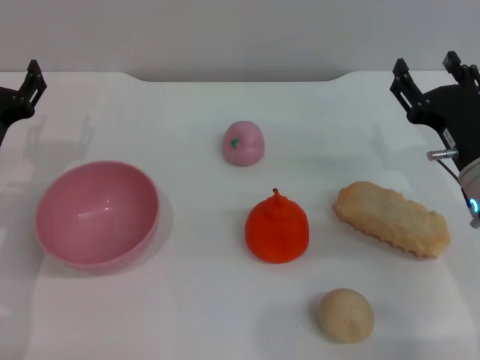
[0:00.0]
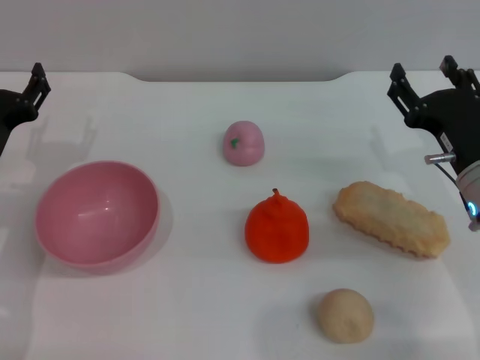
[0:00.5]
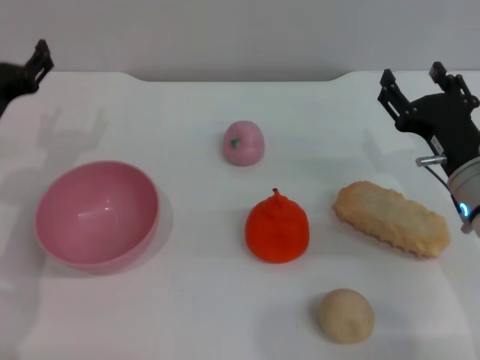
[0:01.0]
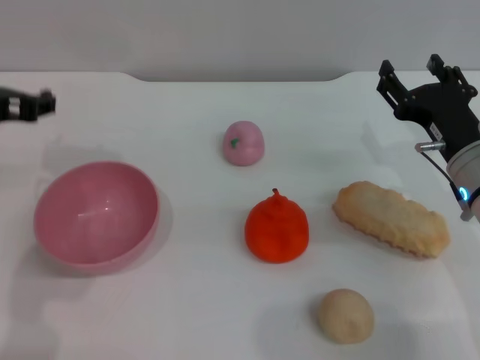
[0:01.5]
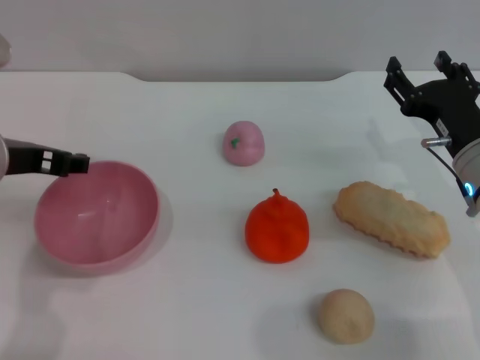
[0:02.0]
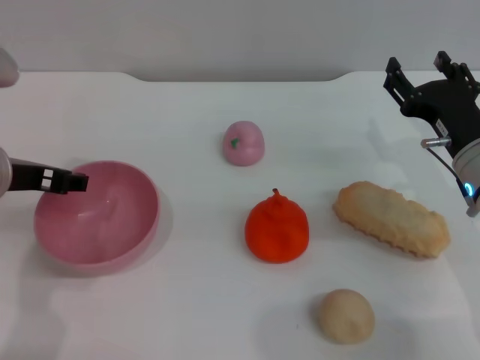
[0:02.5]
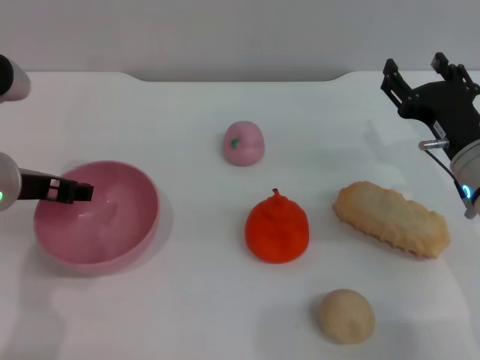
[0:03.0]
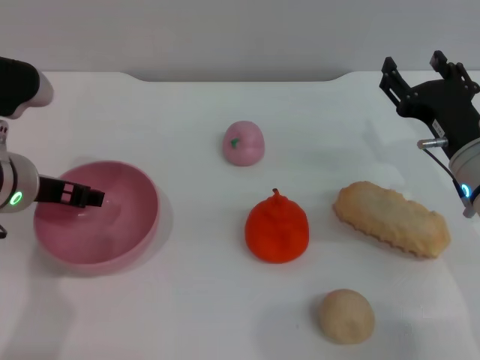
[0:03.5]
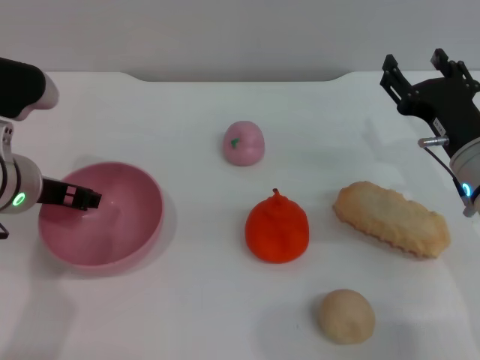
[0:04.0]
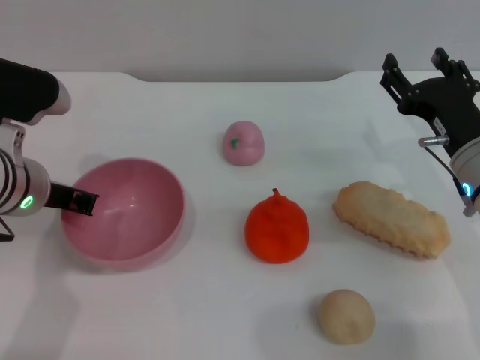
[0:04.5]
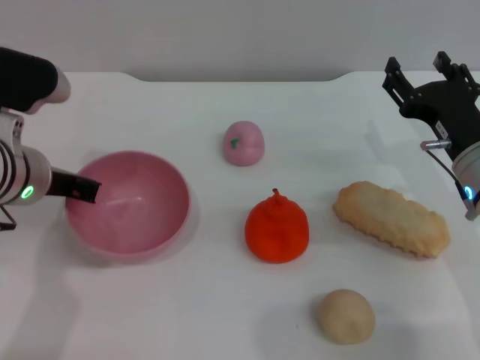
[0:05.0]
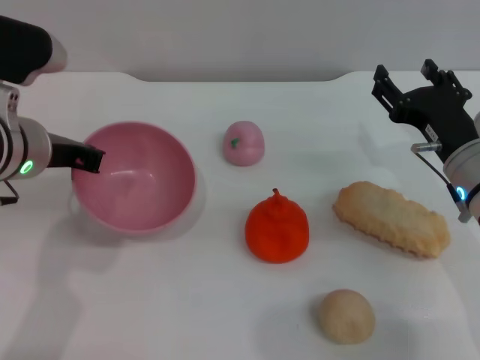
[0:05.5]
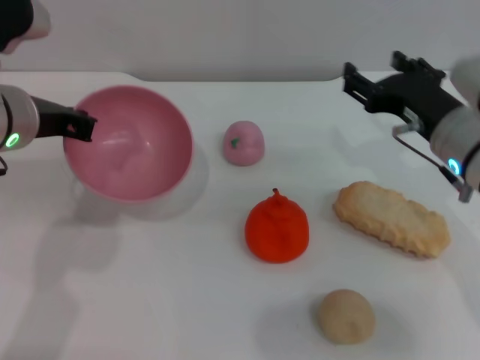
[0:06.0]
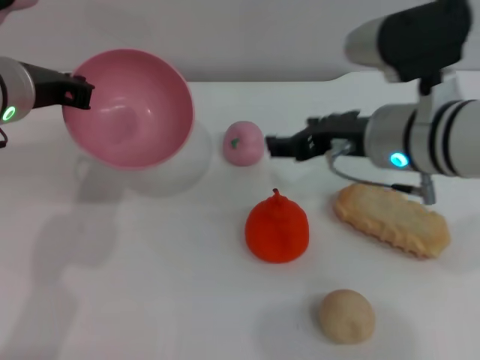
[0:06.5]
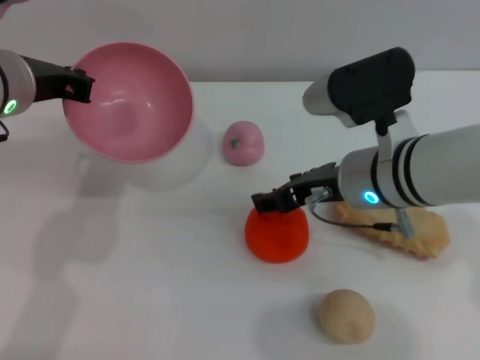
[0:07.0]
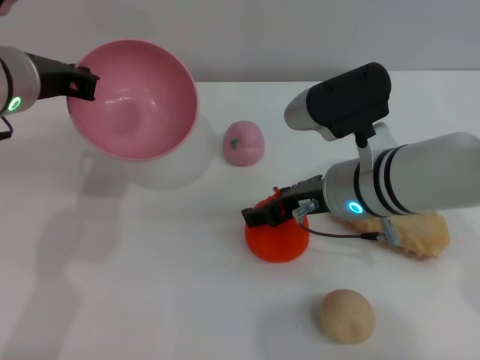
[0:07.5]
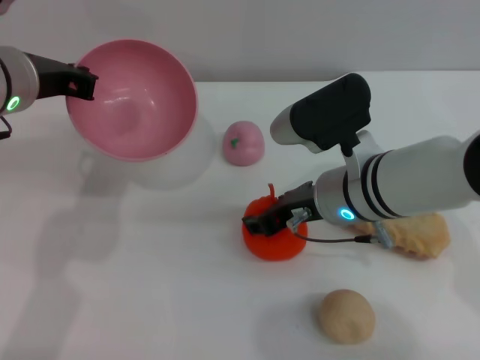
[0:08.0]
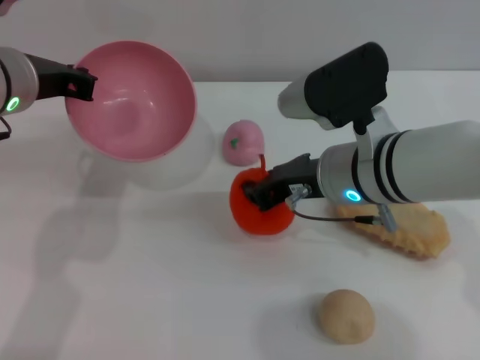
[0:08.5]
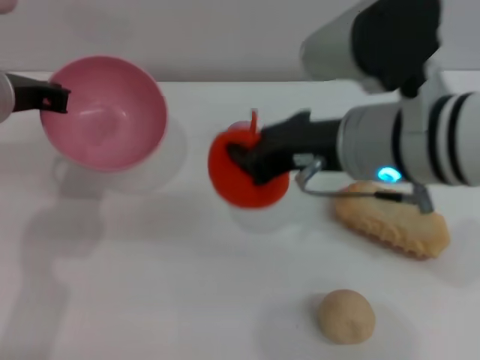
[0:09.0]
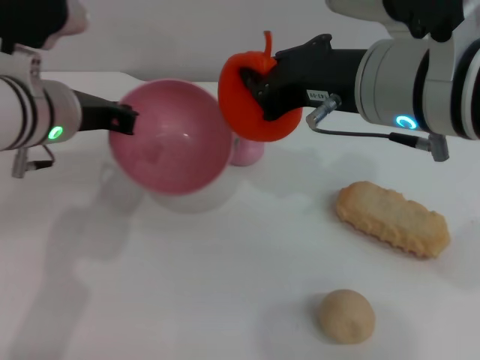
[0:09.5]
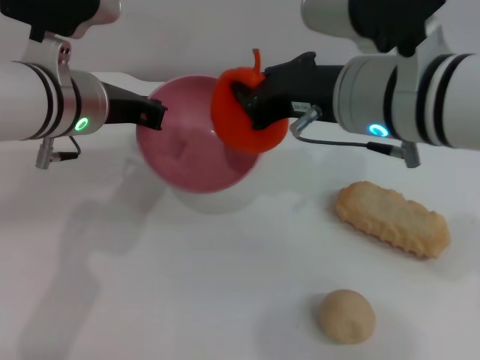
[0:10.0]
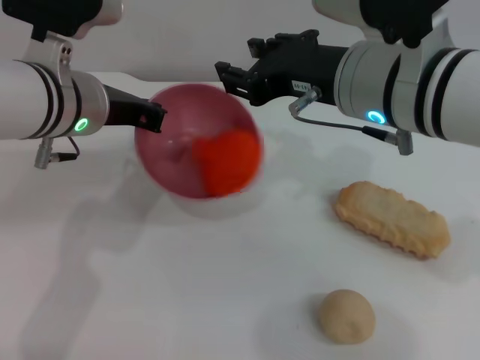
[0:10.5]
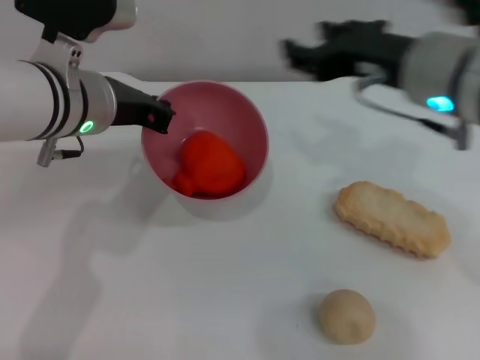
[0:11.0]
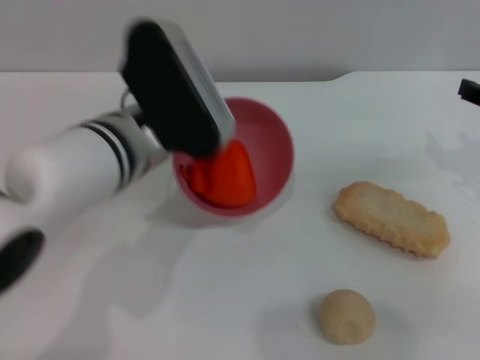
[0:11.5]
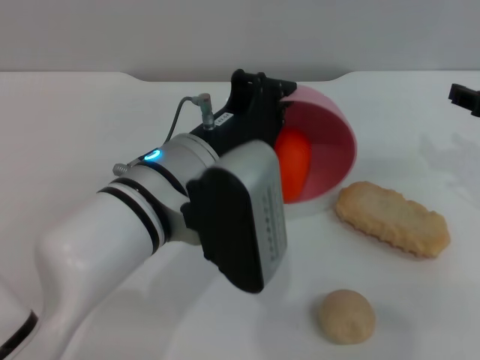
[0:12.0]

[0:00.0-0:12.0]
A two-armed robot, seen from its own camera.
Task of the whole recording: put the orange into the pink bowl and pour it out repeatedly.
Step, 0:00.0 to 0:05.0: Pick up the bowl with the left gripper.
Step, 0:05.5 to 0:08.5: Pick up the orange with the right gripper.
Step, 0:09.0 to 0:10.5: Place the orange into the bowl.
0:00.0 to 0:02.0: The left gripper shifts approximately 15 cm upward and to the right.
0:02.0 to 0:04.0: The left gripper heads downward, covering roughly 5 cm.
0:04.0 to 0:06.0: The two grippers go some 5 cm upward. The left gripper closes its fingers.
0:06.0 to 0:08.0: The right gripper travels to the left by some 10 cm.
0:08.0 to 0:10.0: The right gripper is displaced upward by roughly 10 cm, and closes.
0:10.0 to 0:12.0: The right gripper is displaced to the right by about 20 cm, and opens up. Meanwhile the left gripper heads backward and to the right, covering approximately 10 cm.

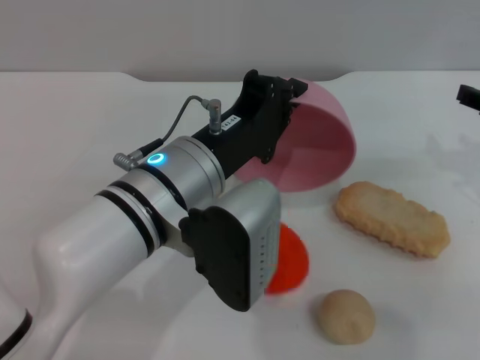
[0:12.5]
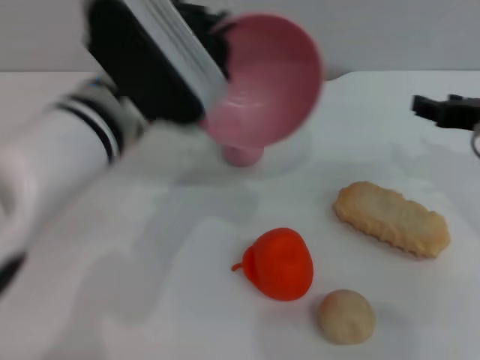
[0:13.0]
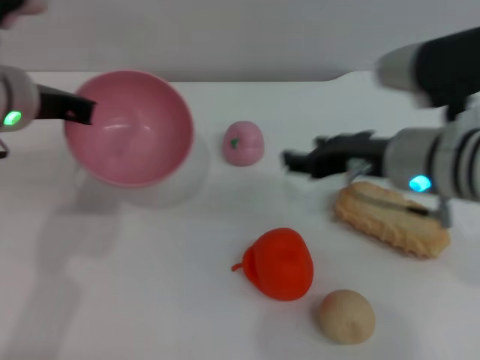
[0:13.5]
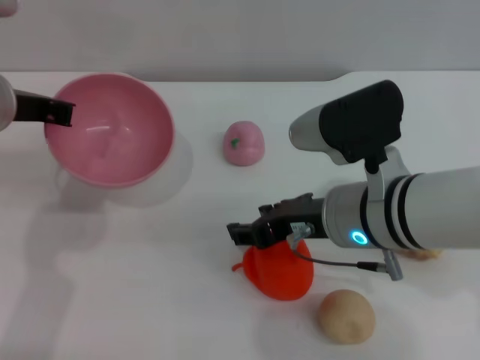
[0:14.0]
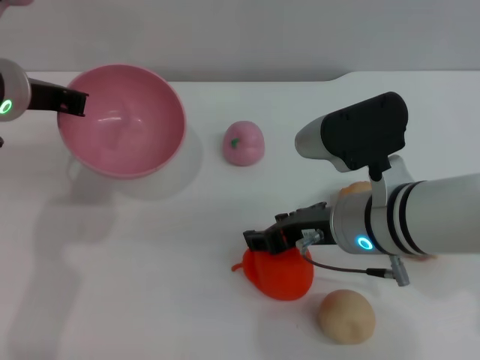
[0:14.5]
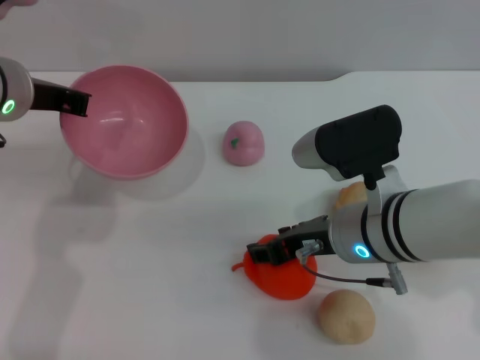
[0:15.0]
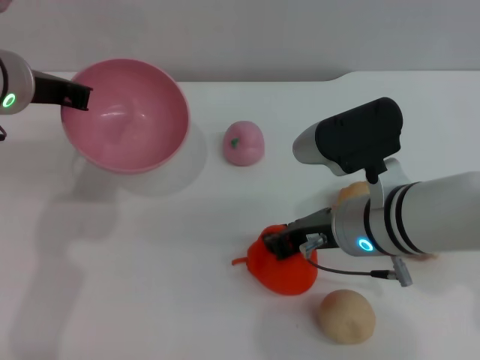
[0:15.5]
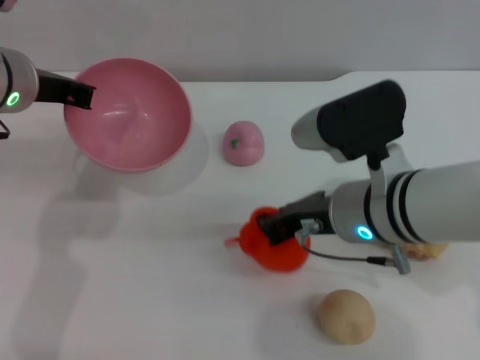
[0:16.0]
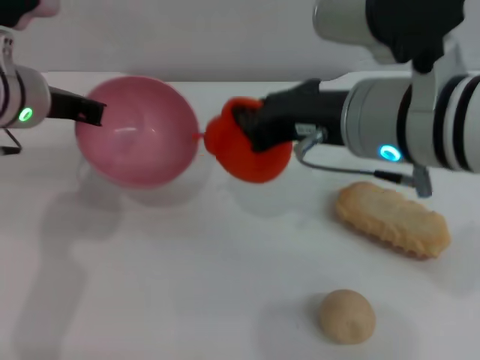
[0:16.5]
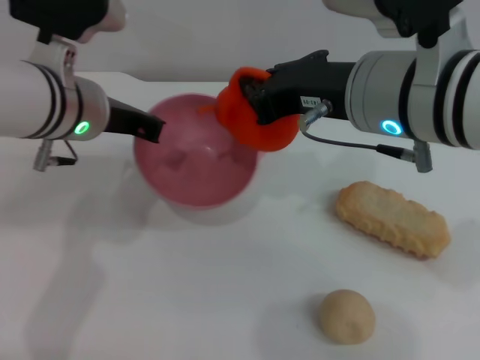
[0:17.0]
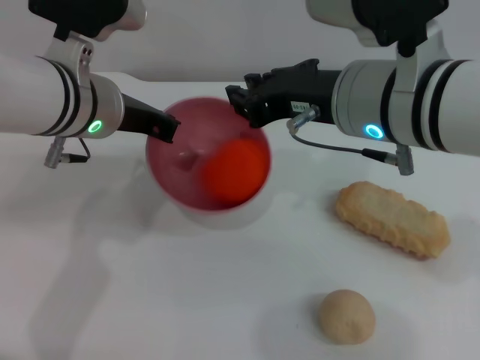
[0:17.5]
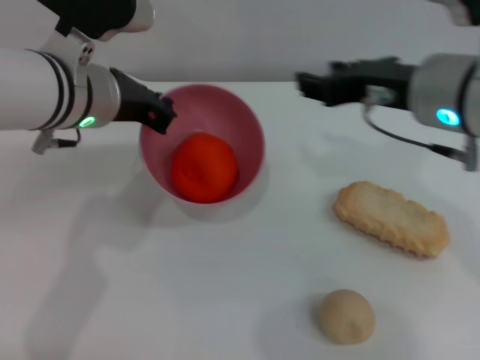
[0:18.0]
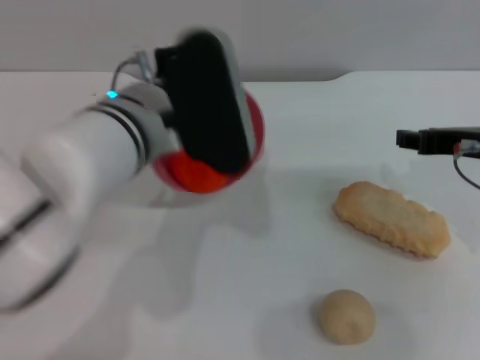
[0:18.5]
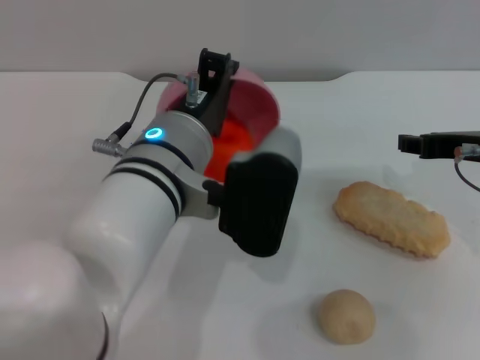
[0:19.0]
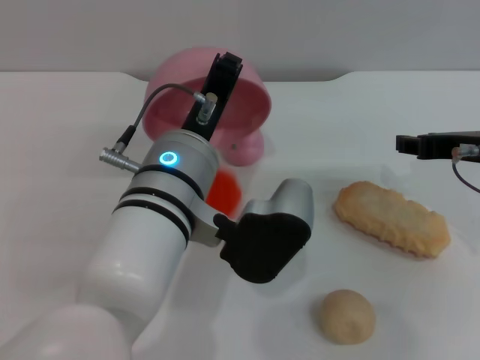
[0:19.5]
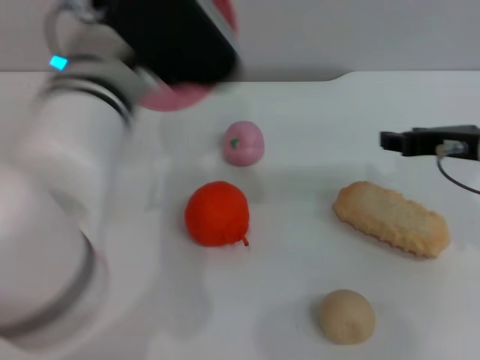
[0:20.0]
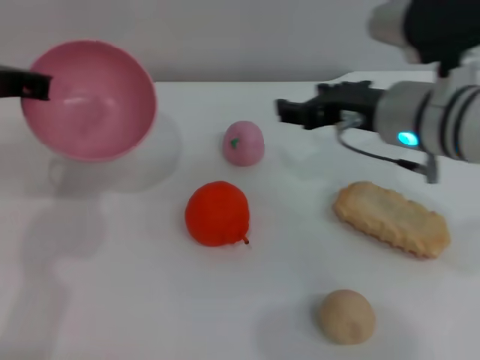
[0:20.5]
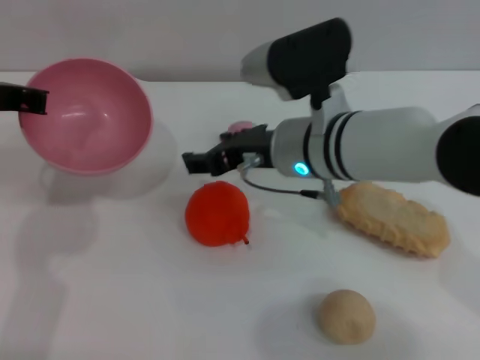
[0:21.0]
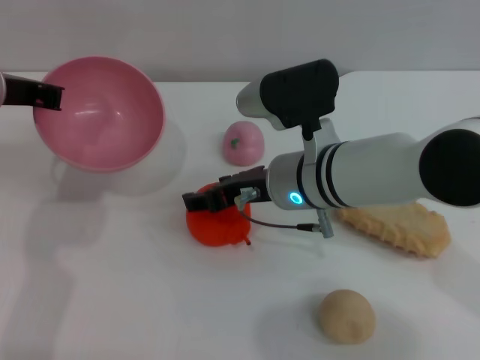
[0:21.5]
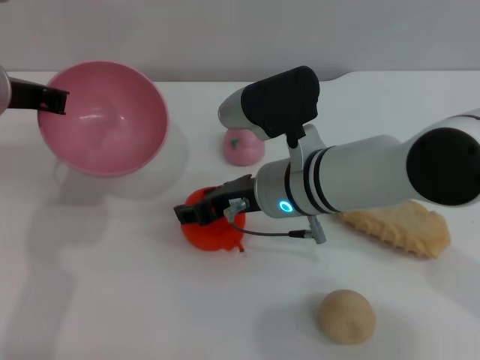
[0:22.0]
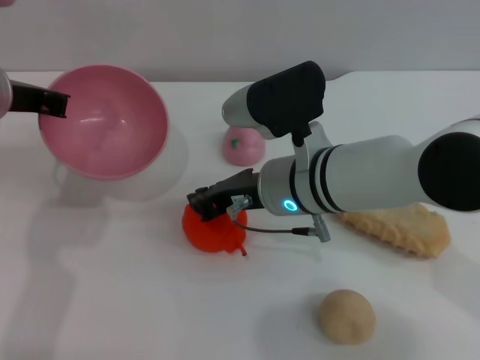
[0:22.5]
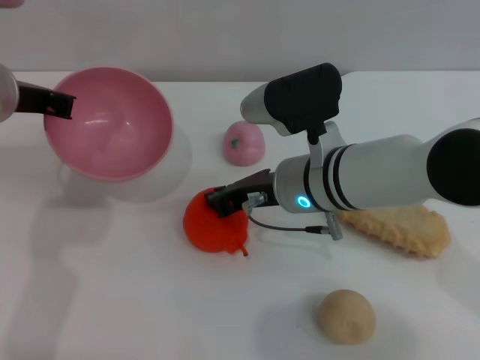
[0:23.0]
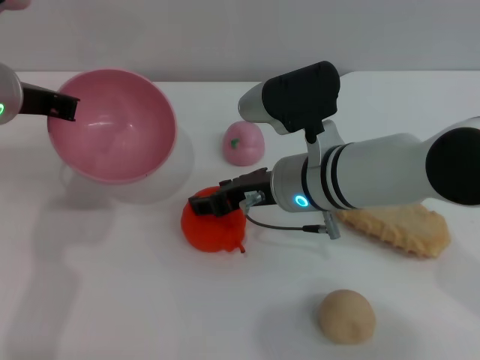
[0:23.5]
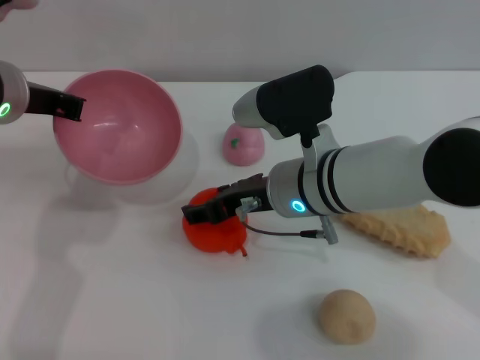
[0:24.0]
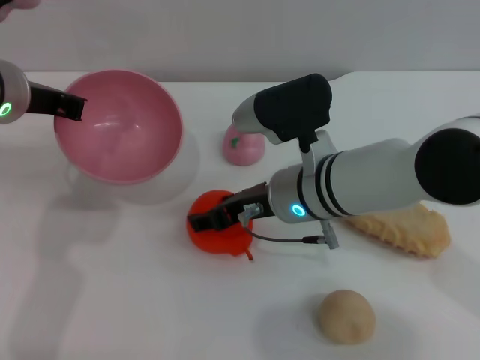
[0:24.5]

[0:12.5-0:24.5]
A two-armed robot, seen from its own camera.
Task of the whole recording: put the orange into the pink bowl and pour it out repeatedly.
Step, 0:13.0 to 0:16.0: Pick up the orange with the right gripper.
Step, 0:16.5 to 0:18.0: Place the orange into the bowl.
Step, 0:18.5 to 0:20.5: Pour the orange out of the bowl.
0:12.5 to 0:14.5: The left gripper goes approximately 15 cm to the left and forward. Meanwhile the right gripper shifts roughly 20 cm to the left.
0:14.5 to 0:16.5: The right gripper heads upward, covering roughly 10 cm, and closes up.
0:16.5 to 0:18.5: The left gripper heads to the right and backward, covering about 15 cm. Meanwhile the right gripper moves to the right and downward, about 15 cm, and opens its fingers.
0:18.5 to 0:20.5: The right gripper moves to the left, approximately 10 cm, while the left gripper moves to the left, approximately 15 cm.
0:20.5 to 0:22.5: The right gripper travels to the left and downward by roughly 10 cm.
0:22.5 to 0:24.5: The right gripper opens its fingers.

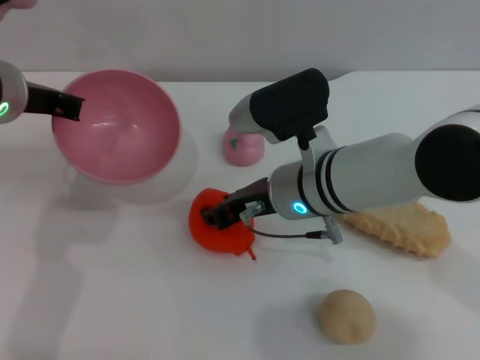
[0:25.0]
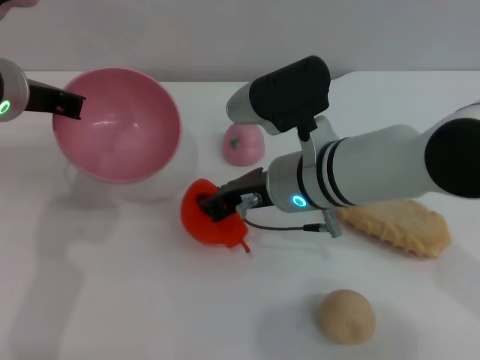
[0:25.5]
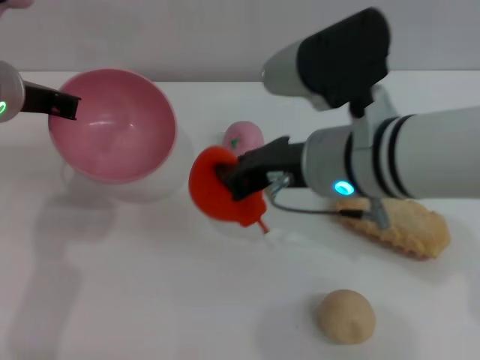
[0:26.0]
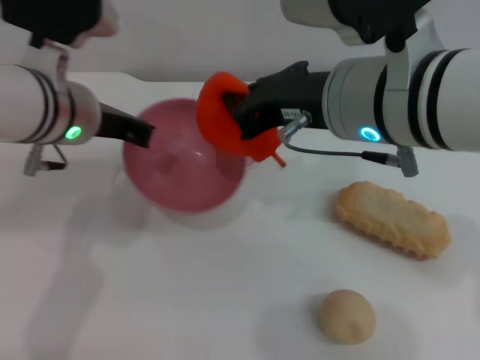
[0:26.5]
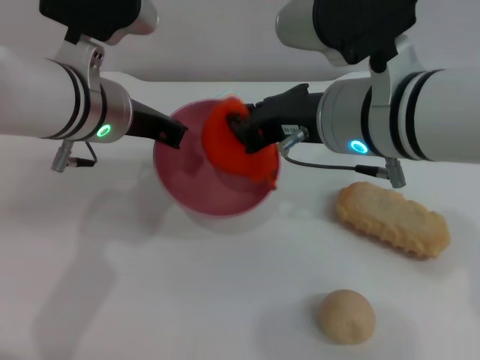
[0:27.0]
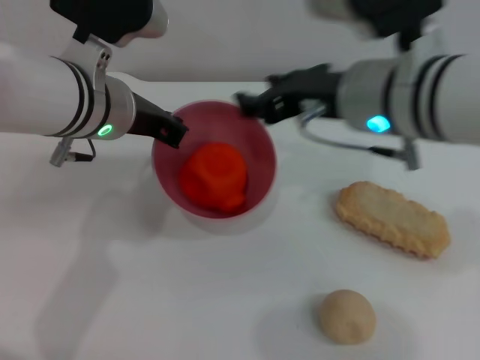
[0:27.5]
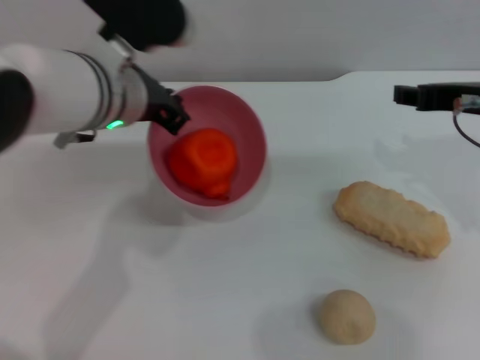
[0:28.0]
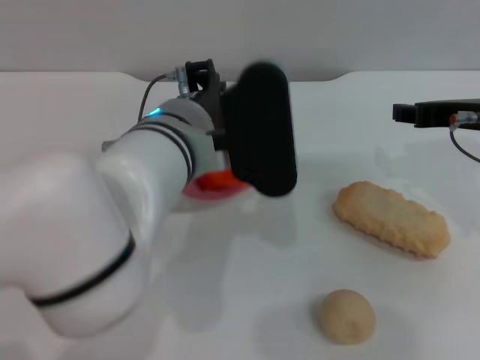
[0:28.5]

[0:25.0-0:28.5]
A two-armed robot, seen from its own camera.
Task of the whole recording: put the orange into the pink bowl and pour it out repeatedly.
Step, 0:26.0 to 0:27.0: Place the orange into the bowl.
0:25.0 to 0:27.0: The right gripper is displaced upward by approximately 10 cm, and closes its fingers; the left gripper moves to the right, some 10 cm.
0:27.0 to 0:28.5: The right gripper moves to the right, roughly 15 cm, and opens up, while the left gripper goes about 10 cm to the right.
